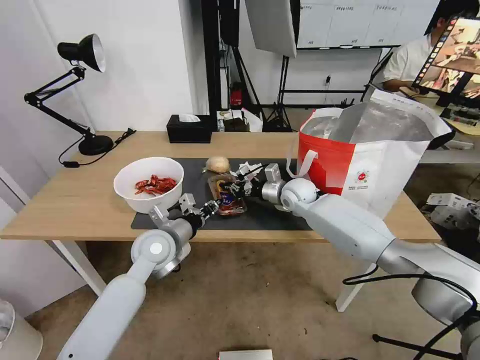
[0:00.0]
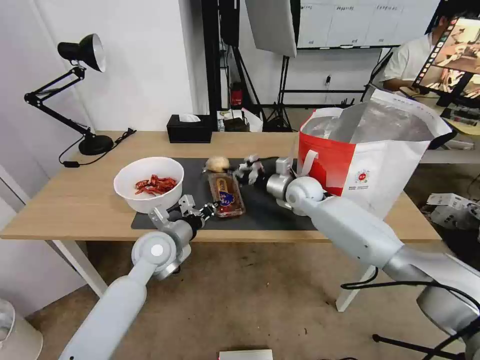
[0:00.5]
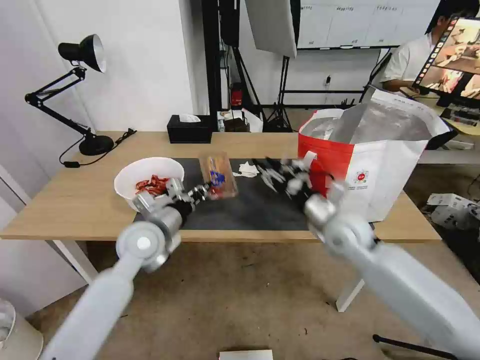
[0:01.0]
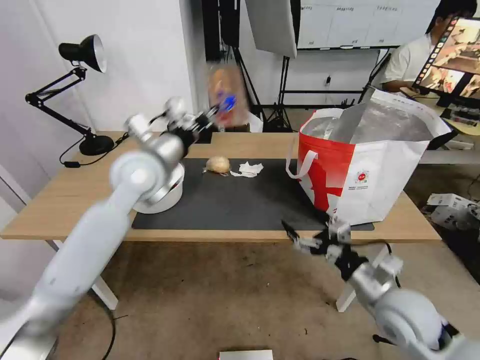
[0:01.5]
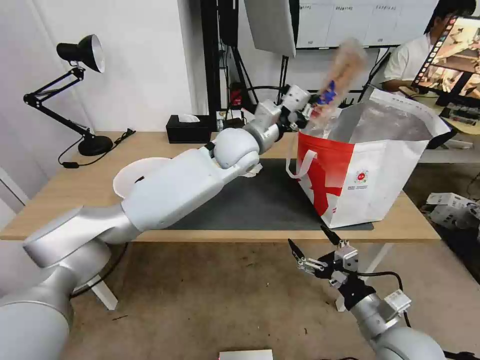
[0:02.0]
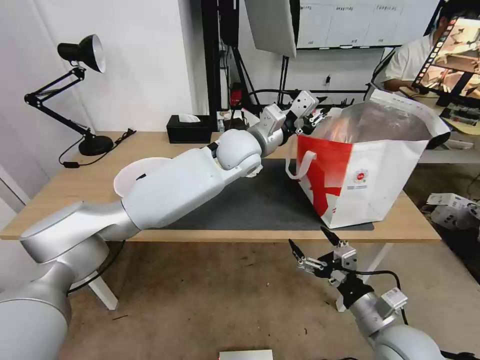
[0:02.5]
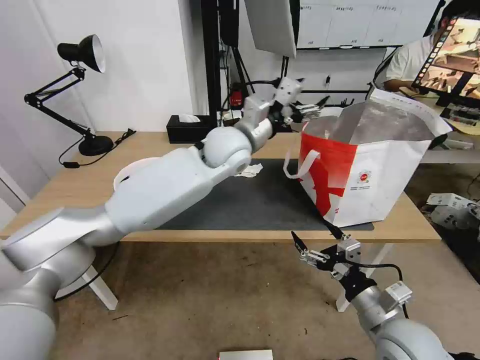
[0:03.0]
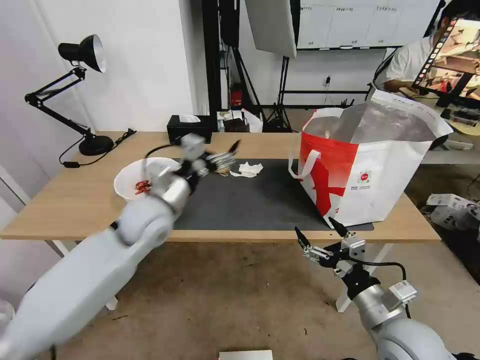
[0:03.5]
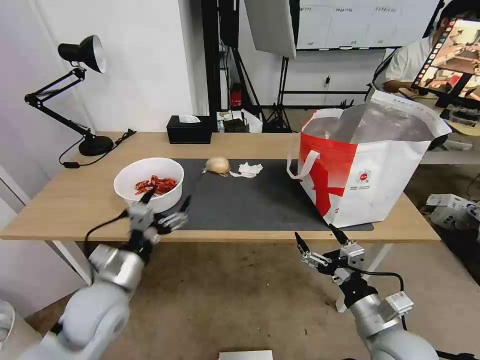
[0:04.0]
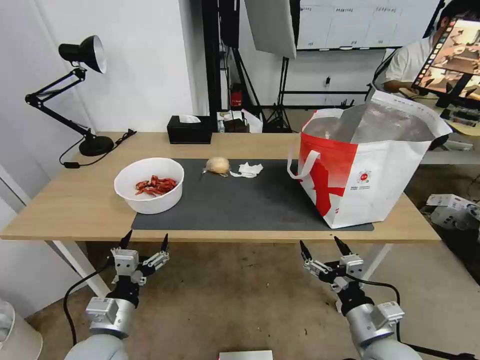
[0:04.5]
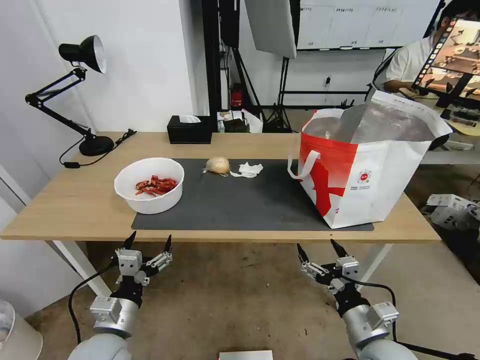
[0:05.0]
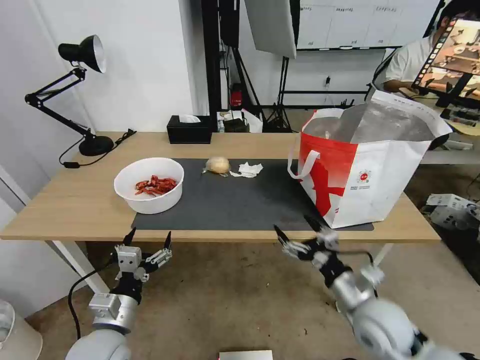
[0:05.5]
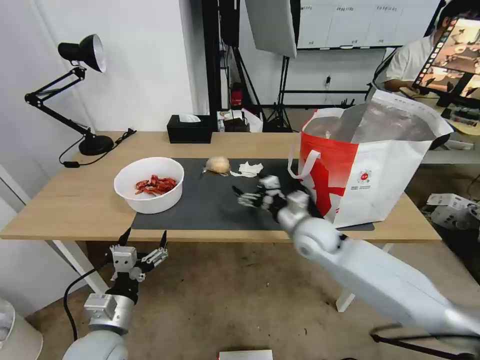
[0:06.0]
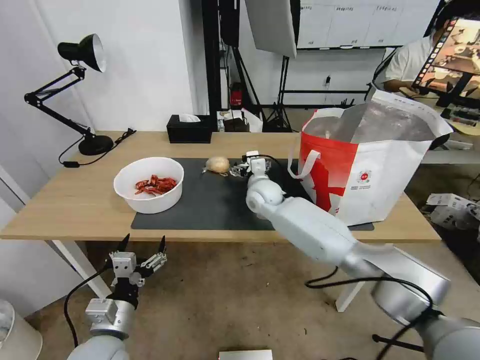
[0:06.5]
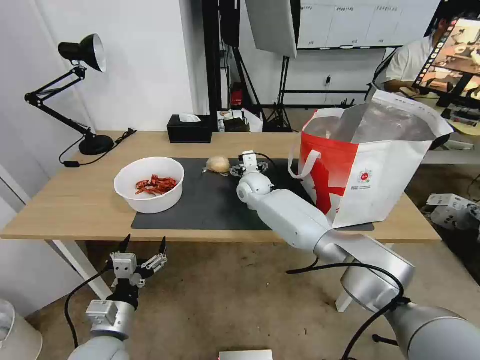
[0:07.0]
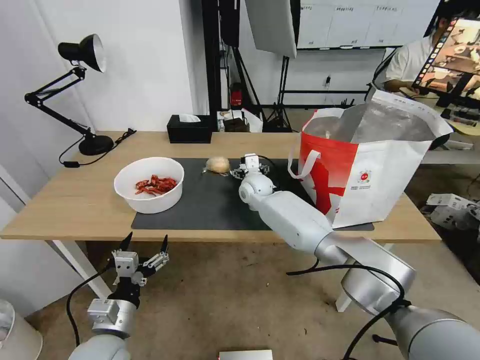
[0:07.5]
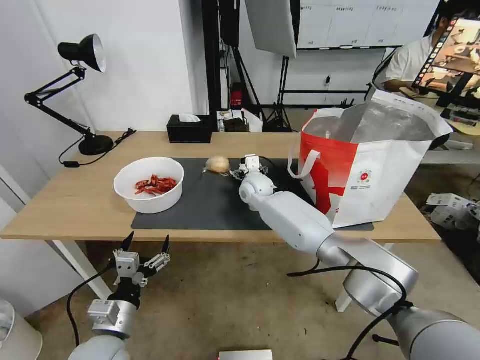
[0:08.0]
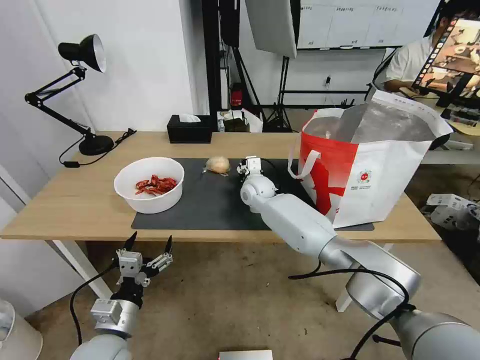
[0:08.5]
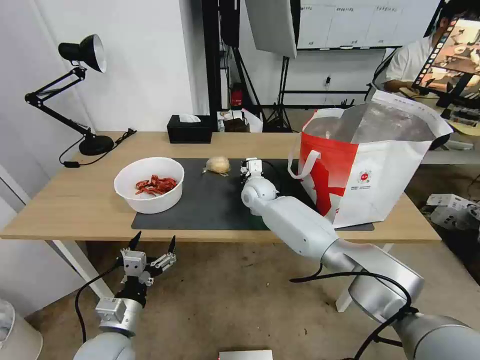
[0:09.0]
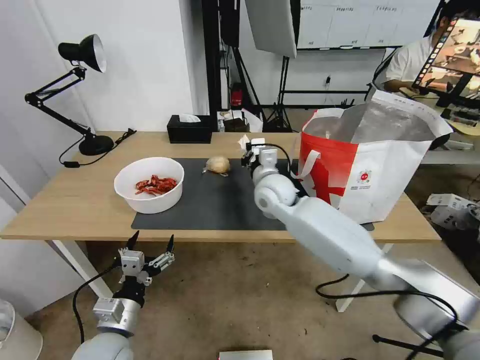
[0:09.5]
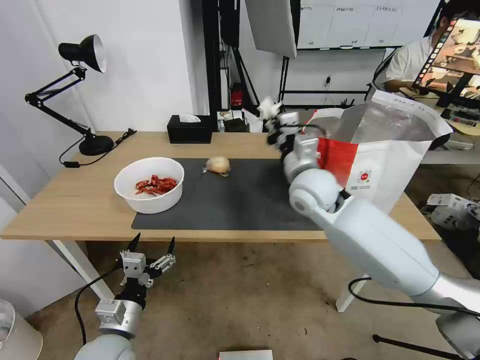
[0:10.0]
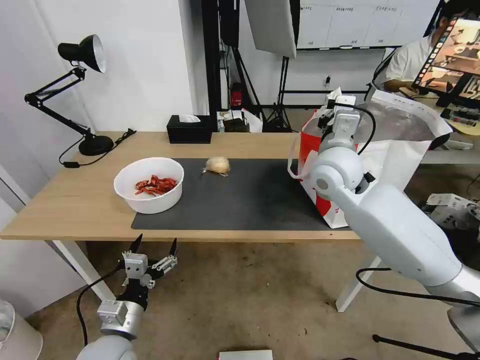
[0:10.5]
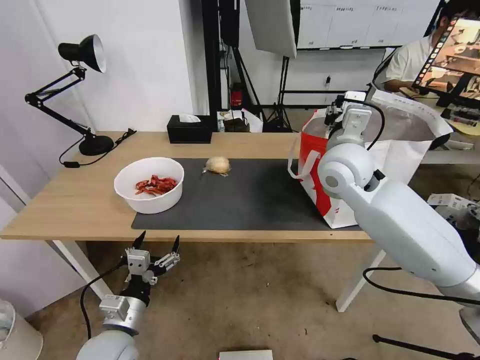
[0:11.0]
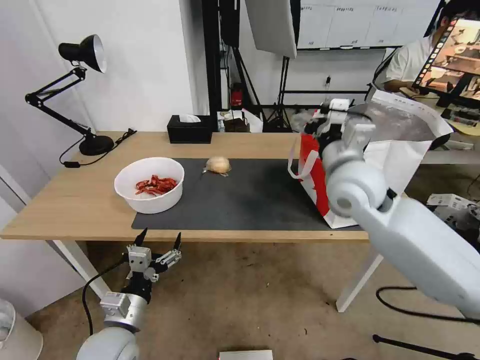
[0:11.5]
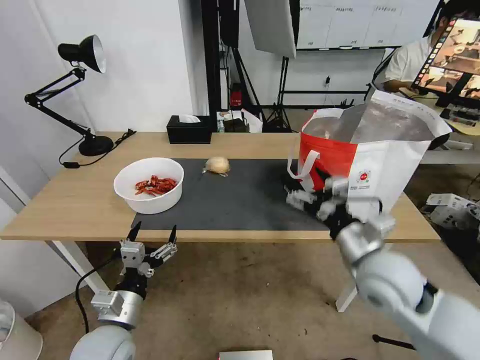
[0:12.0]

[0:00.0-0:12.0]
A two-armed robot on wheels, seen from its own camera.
Task of the whole recording: Pick up the trash from the table and place it into the takeout bag.
0:00.0 to 0:02.0: The left gripper travels upward, to the right and forward by some 25 cm, while the right gripper travels backward by roughly 35 cm, and opens up.
0:02.0 to 0:04.0: The left gripper travels backward, to the left and downward by approximately 40 cm, and opens.
0:04.0 to 0:06.0: The left gripper shifts roughly 5 cm downward, while the right gripper moves forward, some 25 cm.
0:06.0 to 0:08.0: The right gripper is displaced forward and to the left by roughly 20 cm.
0:08.0 to 0:10.0: The right gripper travels backward, upward and to the right by approximately 20 cm, and closes up.
0:10.0 to 0:12.0: The right gripper travels backward and to the right by about 20 cm, and opens up.

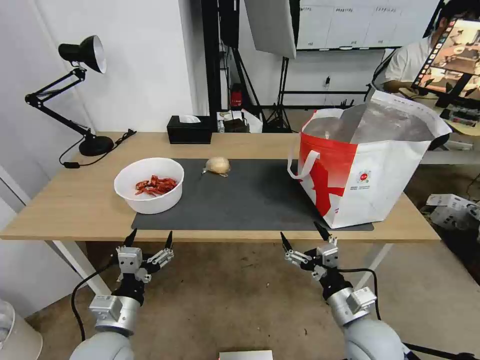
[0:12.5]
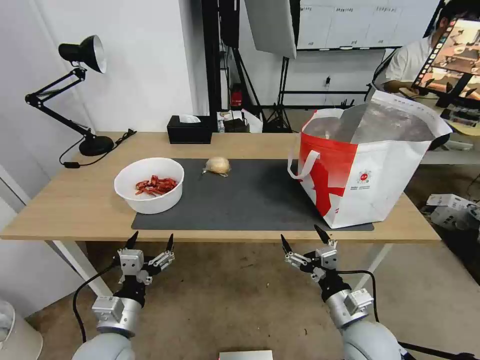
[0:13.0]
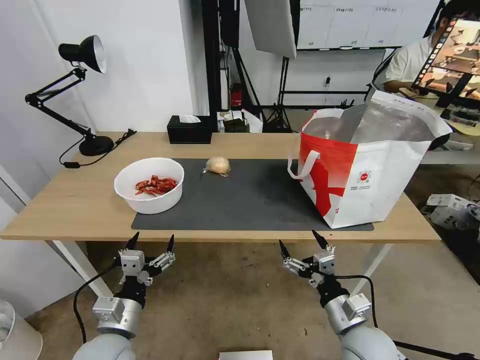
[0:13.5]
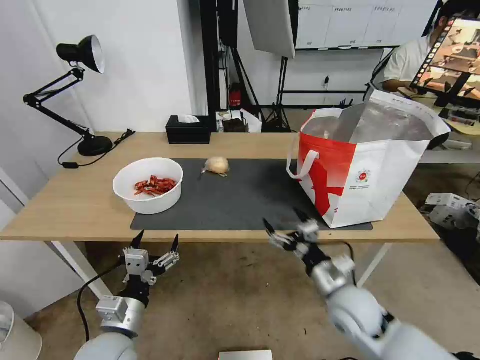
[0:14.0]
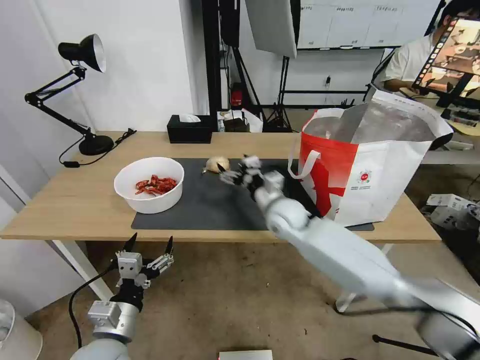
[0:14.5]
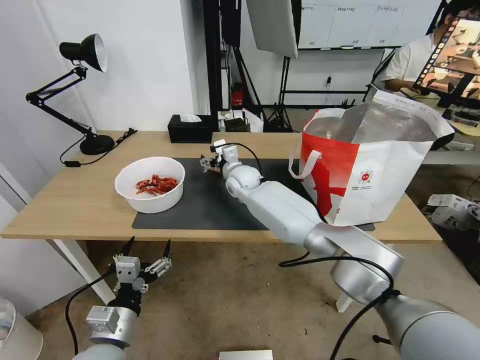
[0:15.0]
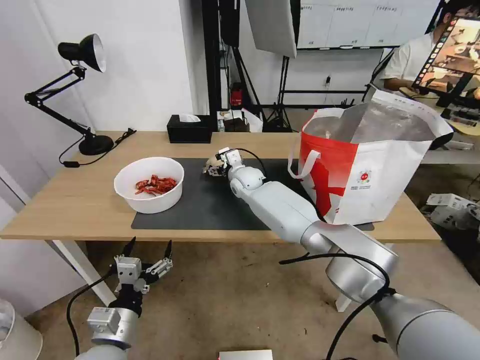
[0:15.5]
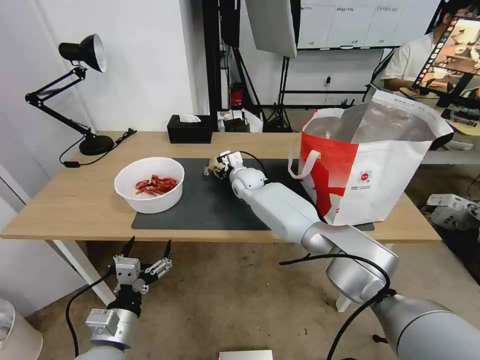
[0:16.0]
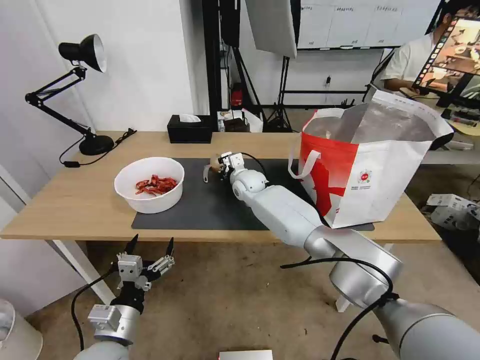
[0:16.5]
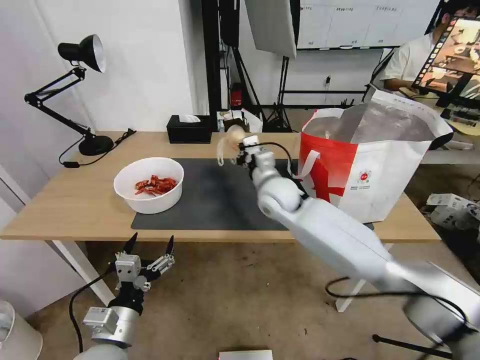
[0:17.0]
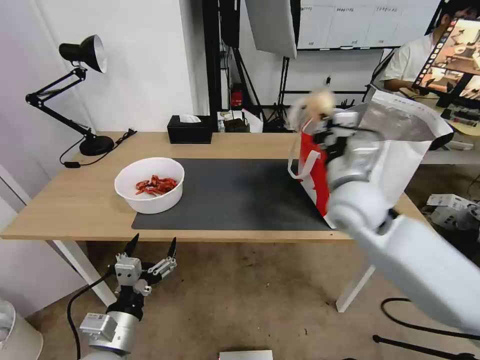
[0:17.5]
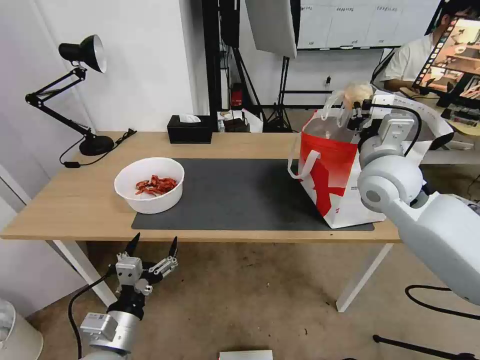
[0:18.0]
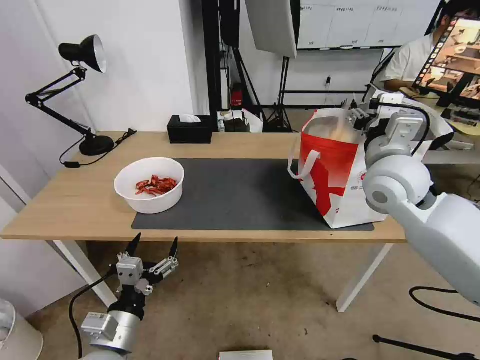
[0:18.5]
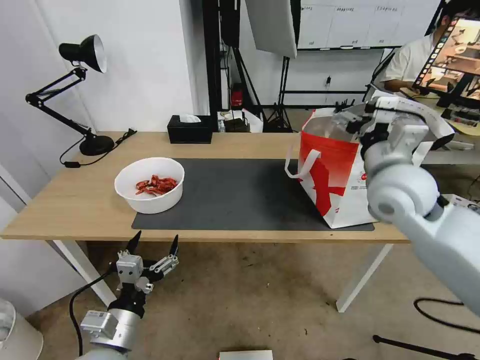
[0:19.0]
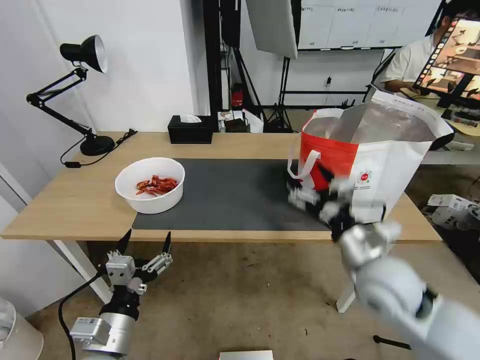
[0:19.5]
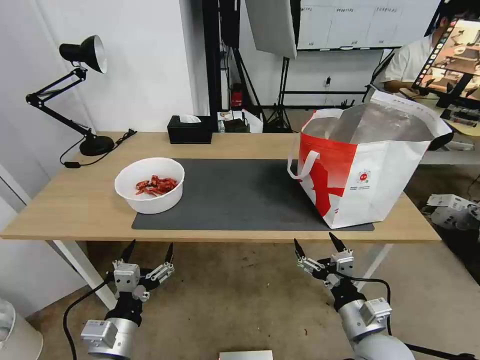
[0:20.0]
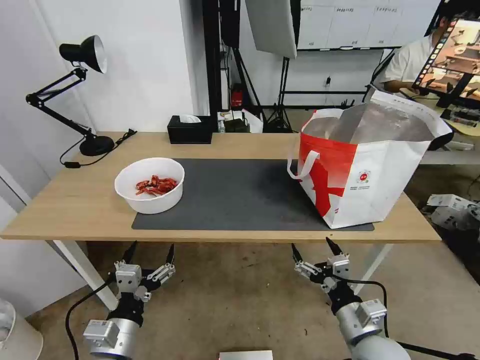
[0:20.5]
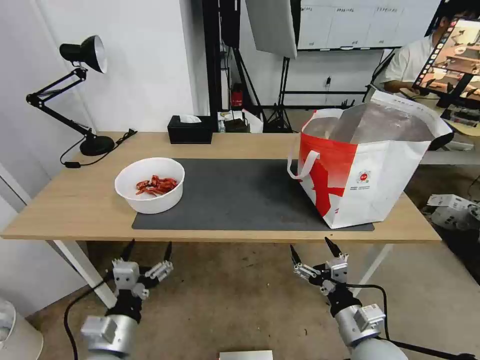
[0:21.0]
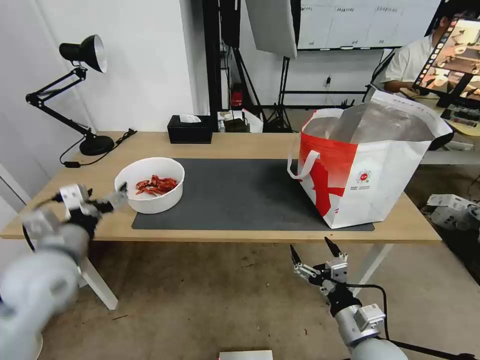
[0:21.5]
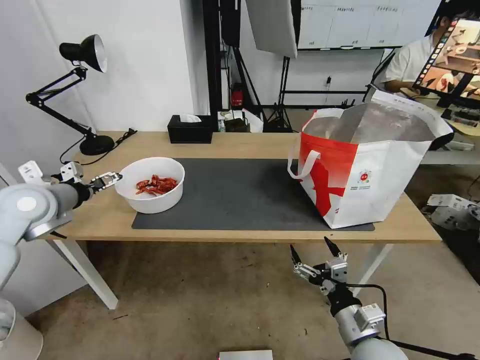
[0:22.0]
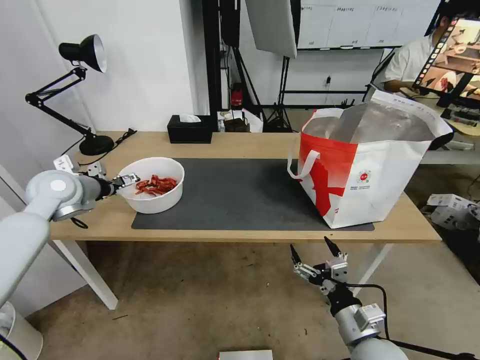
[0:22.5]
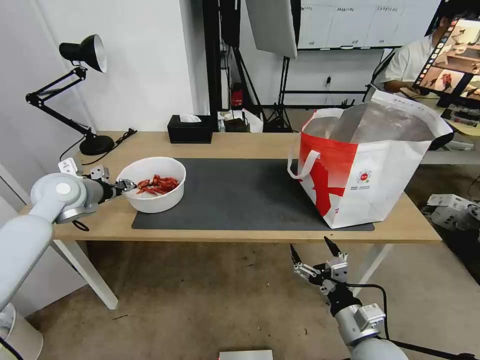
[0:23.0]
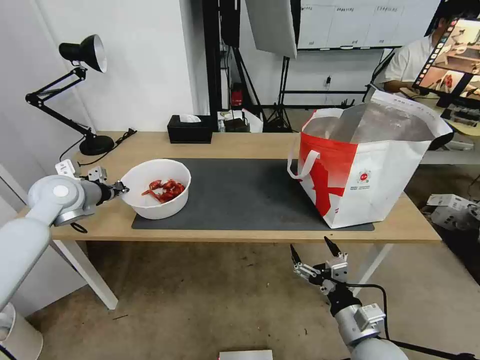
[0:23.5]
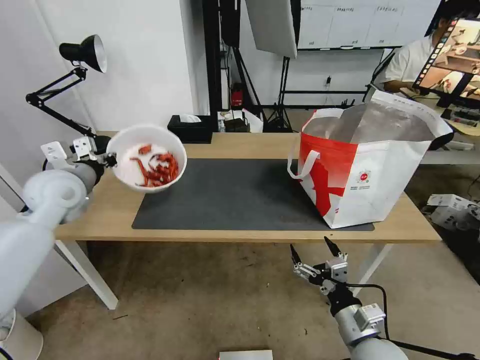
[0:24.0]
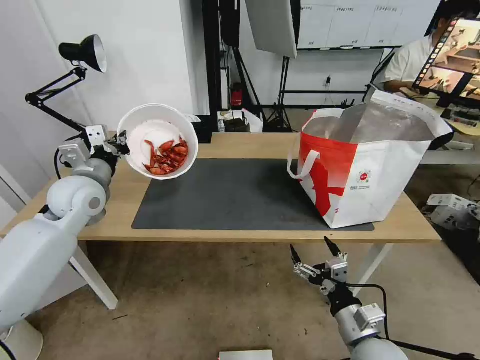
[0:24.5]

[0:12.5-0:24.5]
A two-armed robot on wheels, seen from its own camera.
Task of the whole recording: Pick up the trash from the table and place it into the takeout bag.
0:12.5 to 0:14.5: The right gripper is displaced forward and to the left by about 30 cm.
0:14.5 to 0:16.5: The right gripper is displaced forward and to the left by roughly 15 cm, and closes its fingers.
0:16.5 to 0:18.5: The right gripper goes about 35 cm to the right, backward and upward, and opens its fingers.
0:18.5 to 0:20.5: The right gripper shifts roughly 35 cm downward and backward.
0:20.5 to 0:22.5: The left gripper heads forward, upward and to the left, covering some 40 cm.
0:22.5 to 0:24.5: The left gripper is displaced to the right by roughly 5 cm, and closes up.

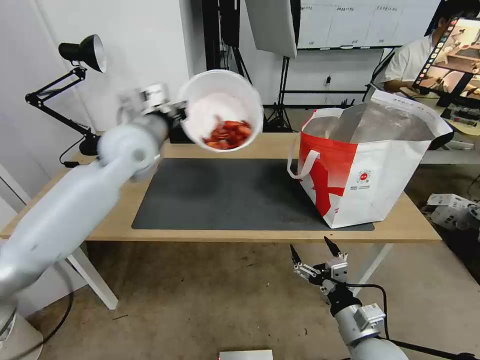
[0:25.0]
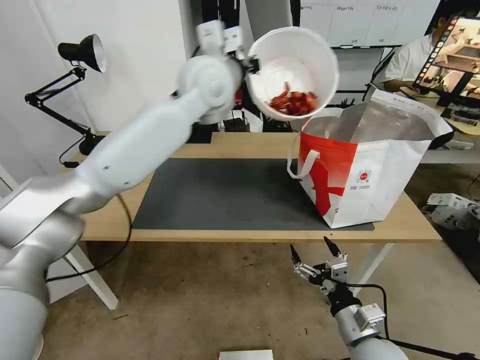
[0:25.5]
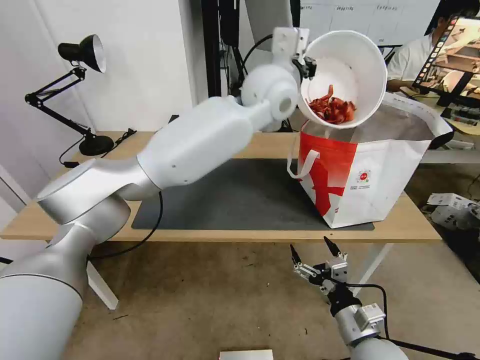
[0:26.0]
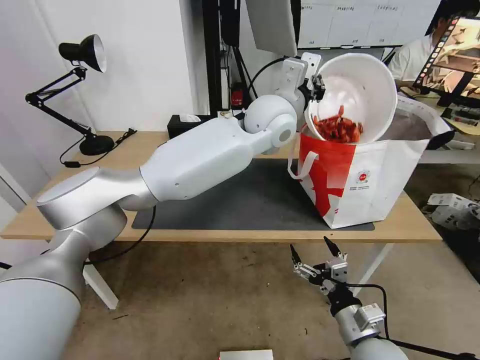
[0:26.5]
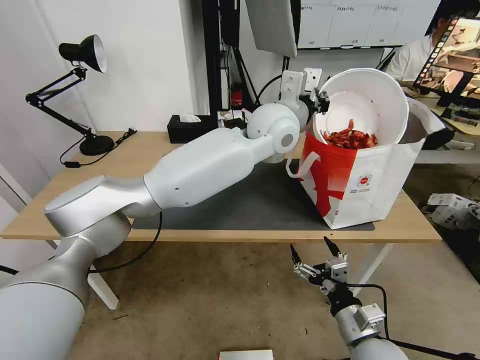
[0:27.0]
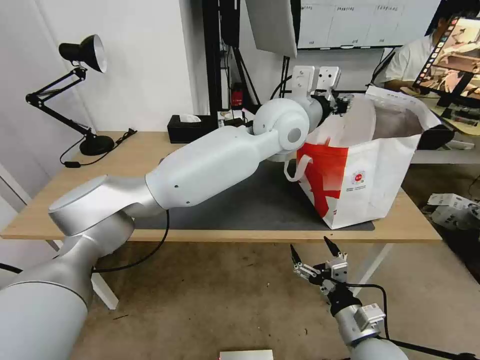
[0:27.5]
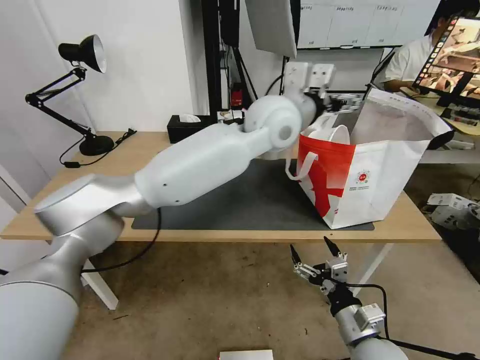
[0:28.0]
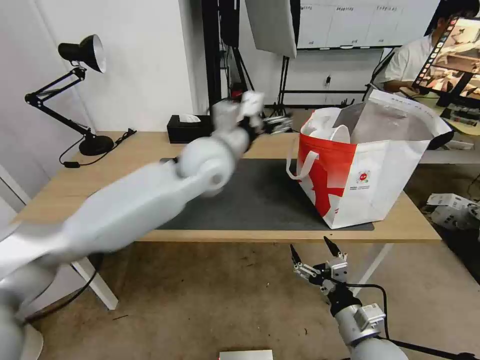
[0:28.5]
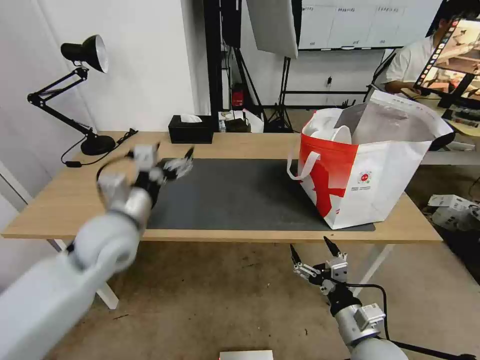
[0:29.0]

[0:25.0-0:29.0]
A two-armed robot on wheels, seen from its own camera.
Task of the whole recording: Pick up the trash from the table and place it into the takeout bag.
0:25.0 to 0:27.0: The left gripper heads to the right, covering roughly 30 cm.
0:27.0 to 0:29.0: The left gripper shifts approximately 35 cm to the left, backward and downward, and opens.
